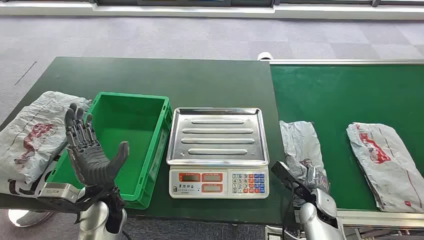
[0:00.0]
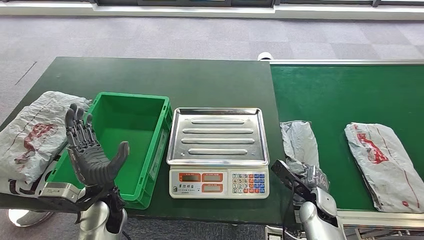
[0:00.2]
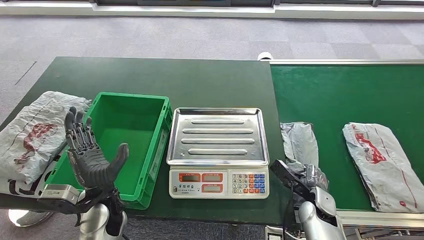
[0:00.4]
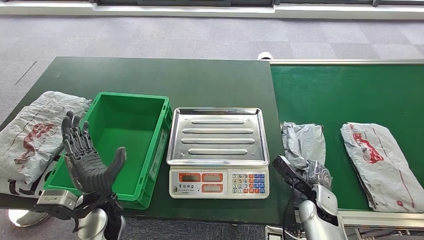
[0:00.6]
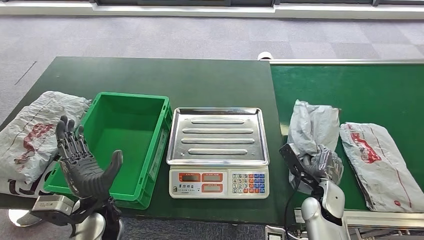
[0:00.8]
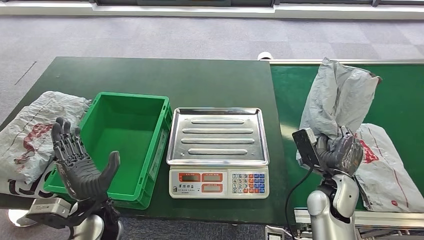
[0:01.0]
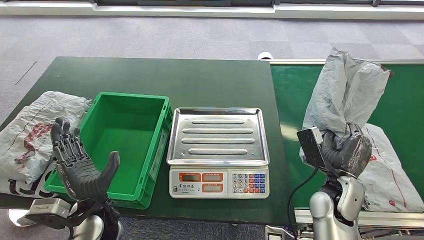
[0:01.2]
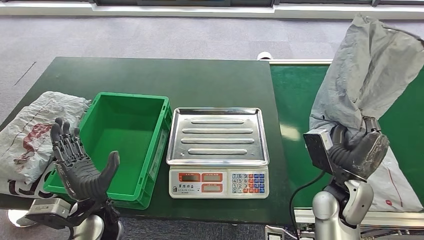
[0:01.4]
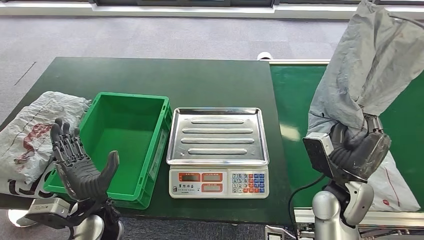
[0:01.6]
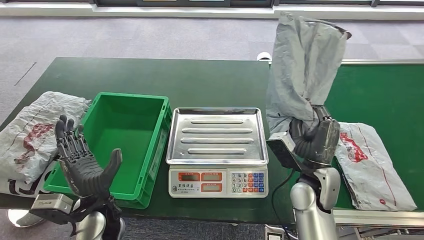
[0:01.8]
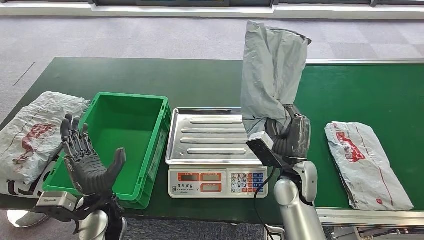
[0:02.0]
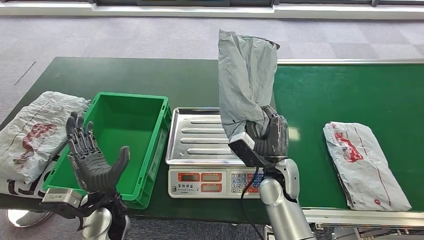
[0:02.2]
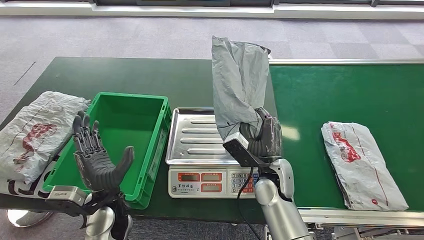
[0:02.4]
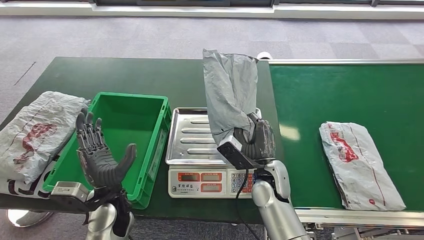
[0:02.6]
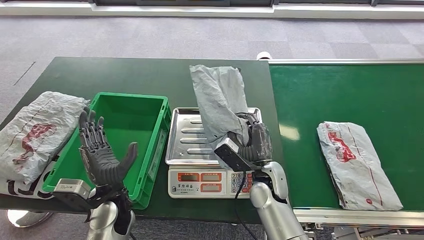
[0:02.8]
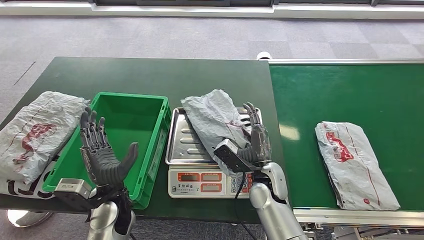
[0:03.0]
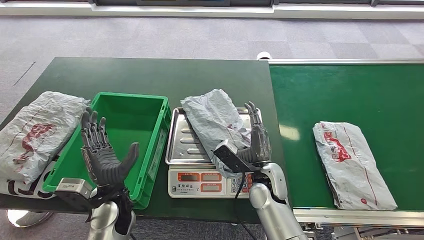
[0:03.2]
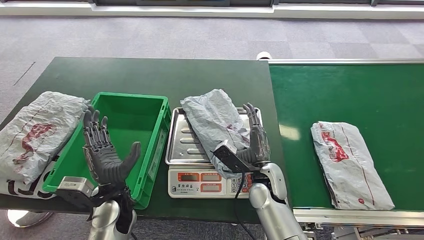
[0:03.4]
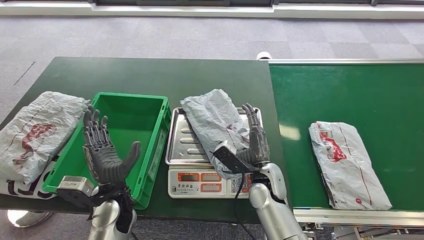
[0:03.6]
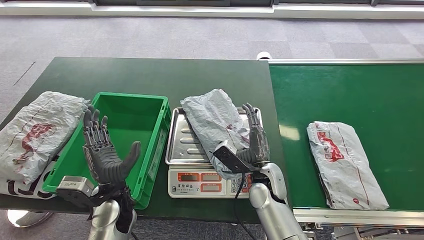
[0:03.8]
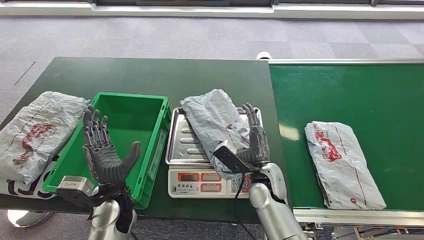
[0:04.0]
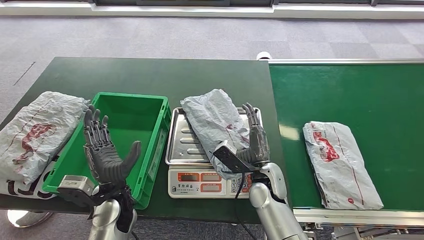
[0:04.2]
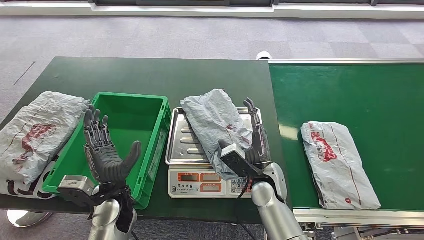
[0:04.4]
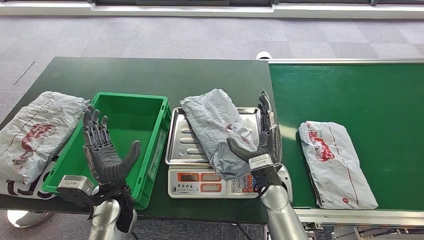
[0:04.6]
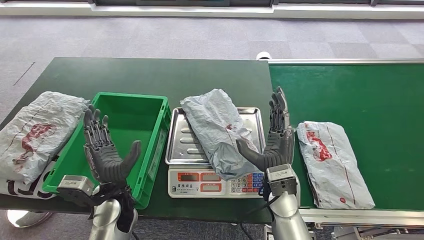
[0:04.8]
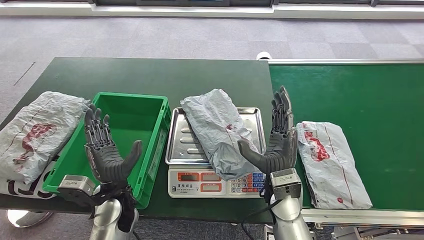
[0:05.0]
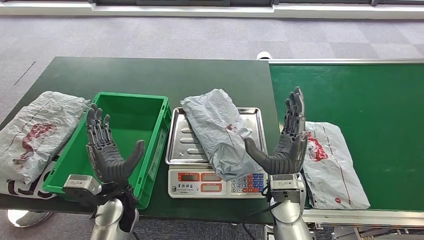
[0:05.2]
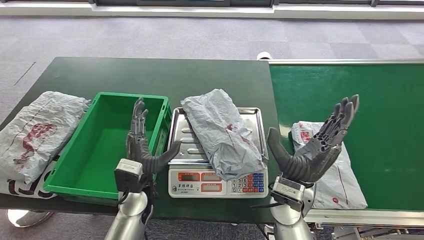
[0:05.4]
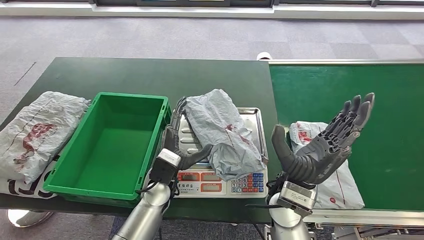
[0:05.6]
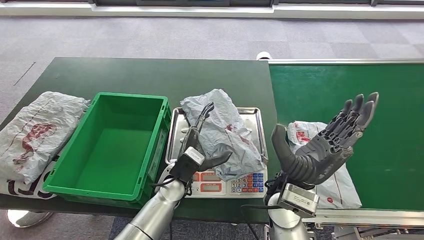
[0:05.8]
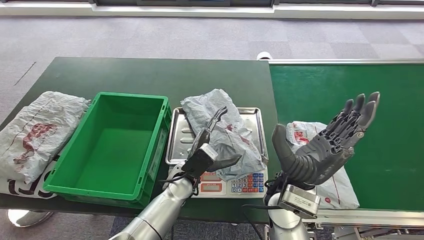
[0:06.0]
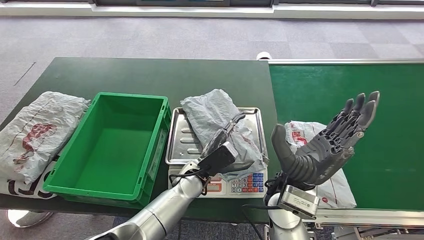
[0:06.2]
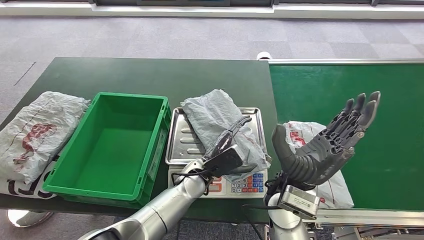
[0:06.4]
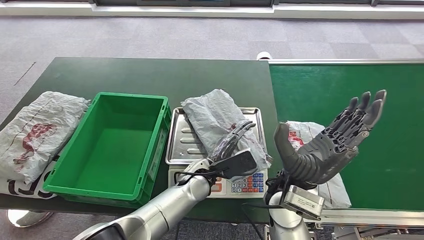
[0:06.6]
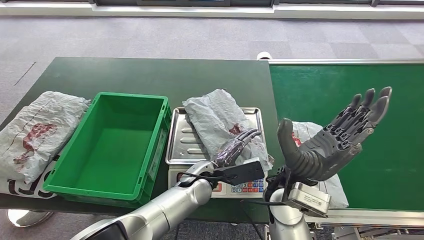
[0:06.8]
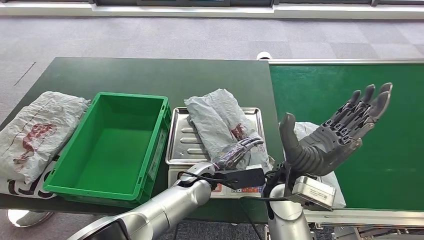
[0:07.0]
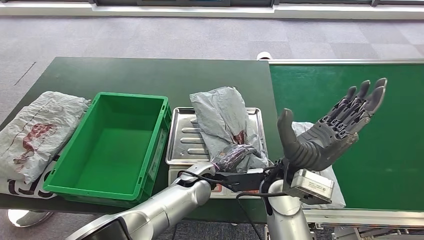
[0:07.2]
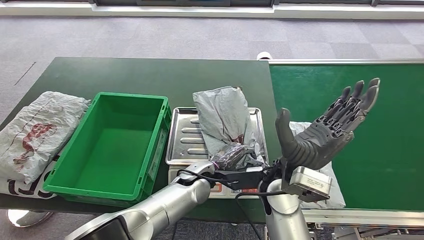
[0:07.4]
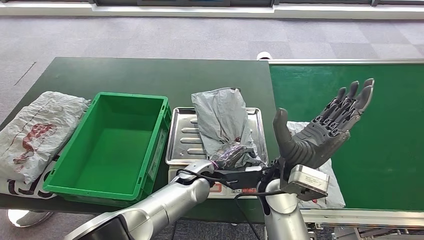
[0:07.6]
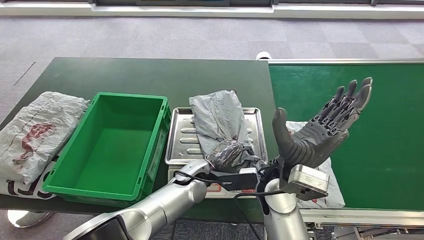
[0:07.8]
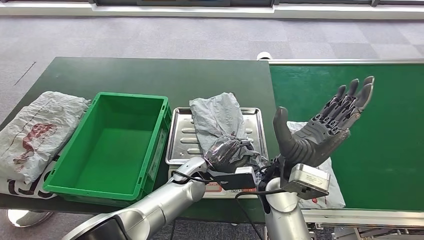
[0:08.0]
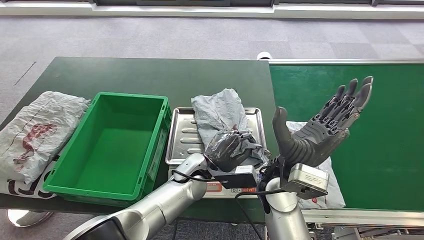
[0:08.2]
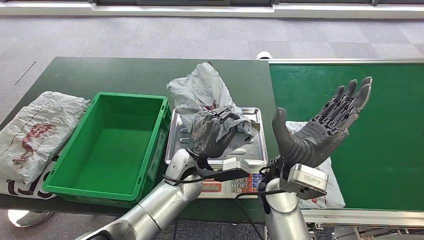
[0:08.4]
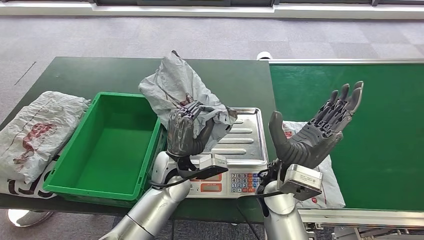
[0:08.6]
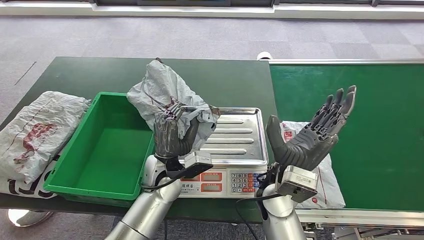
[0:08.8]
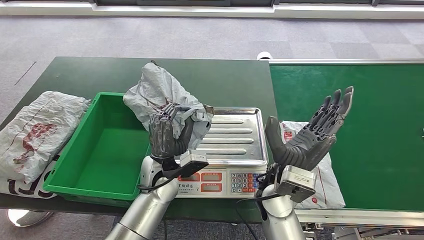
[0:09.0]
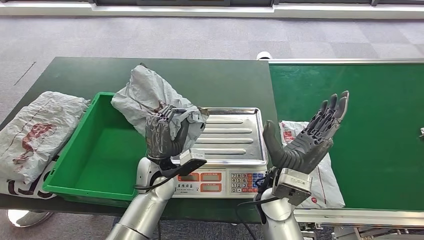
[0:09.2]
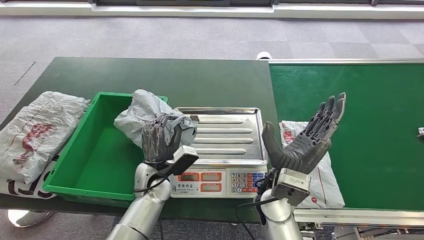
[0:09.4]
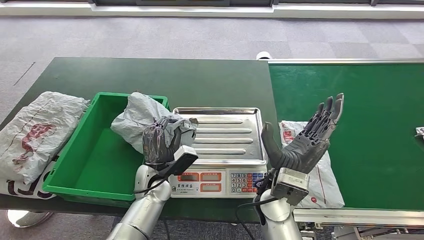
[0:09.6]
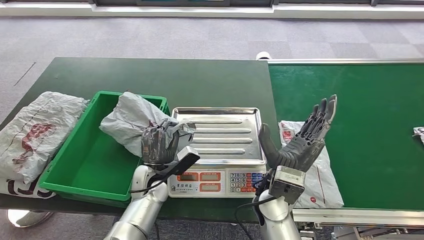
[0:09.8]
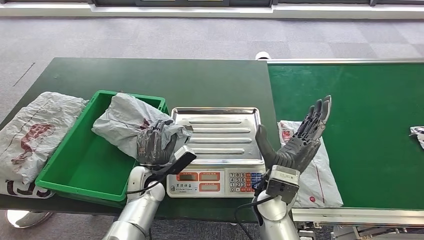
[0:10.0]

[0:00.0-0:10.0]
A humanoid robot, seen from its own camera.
Step, 0:00.0 to 0:01.4: Take the parcel off the conveyor belt.
Step, 0:01.6 to 0:05.0: Place the parcel onto the inbound machine.
Step, 0:05.4 to 0:09.0: Pick up the parcel from the inbound machine.
0:02.8 to 0:04.2: The two hands keep their place.
0:04.2 to 0:05.8: The right hand travels upward by about 10 cm, while the left hand is displaced to the right and forward by approximately 15 cm.
0:05.8 to 0:07.2: The left hand goes approximately 5 cm to the right.
0:07.2 to 0:08.6: The left hand shifts approximately 10 cm to the left and upward.

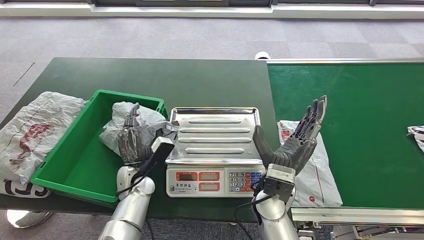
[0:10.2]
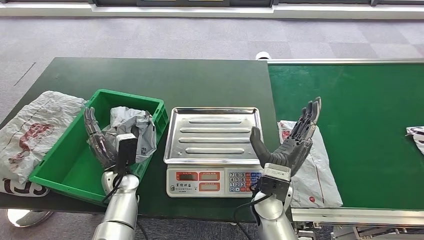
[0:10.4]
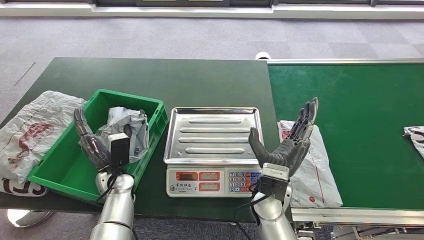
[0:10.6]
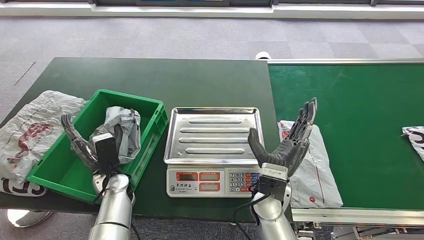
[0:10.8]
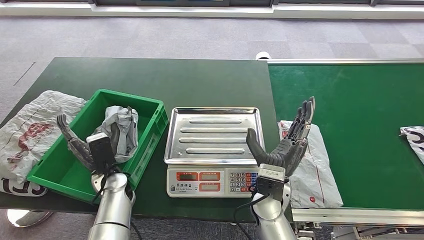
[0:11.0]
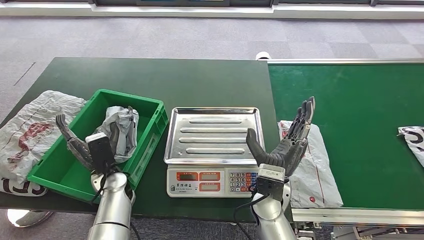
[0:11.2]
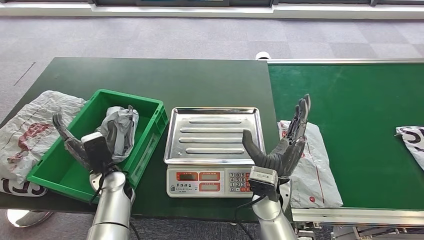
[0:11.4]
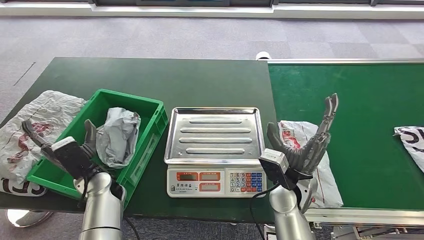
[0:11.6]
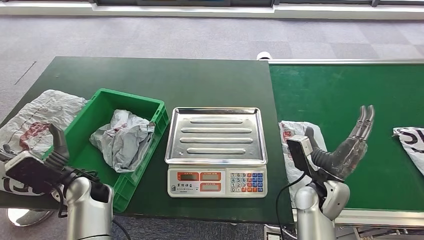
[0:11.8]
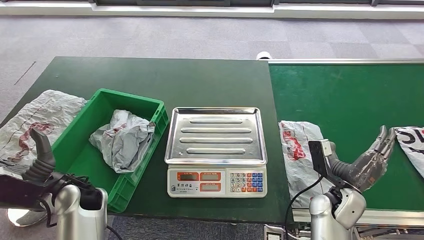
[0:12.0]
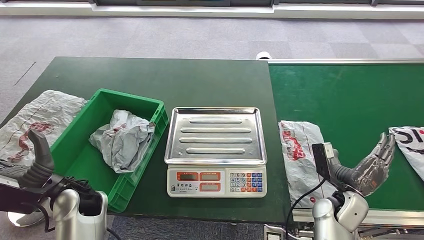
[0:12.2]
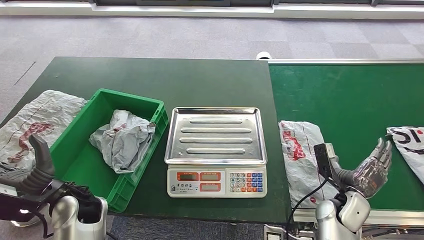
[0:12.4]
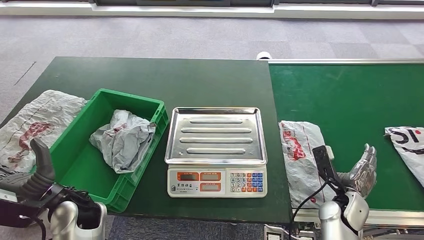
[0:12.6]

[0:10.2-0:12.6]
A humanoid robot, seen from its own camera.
Step, 0:10.2 to 0:12.6: Put the parcel inside the courier box.
0:10.2 to 0:11.4: The left hand shifts by approximately 5 cm.

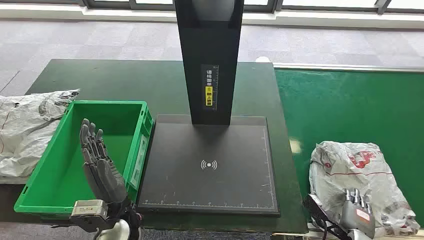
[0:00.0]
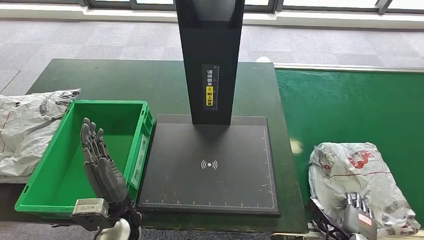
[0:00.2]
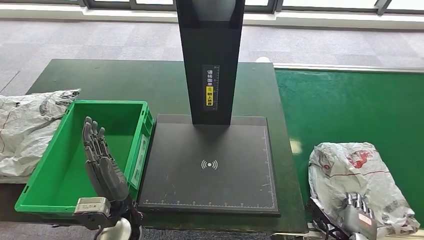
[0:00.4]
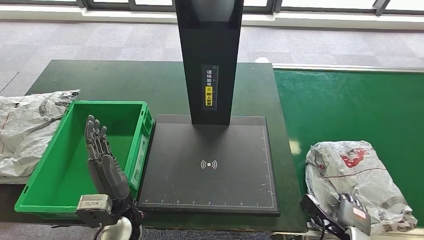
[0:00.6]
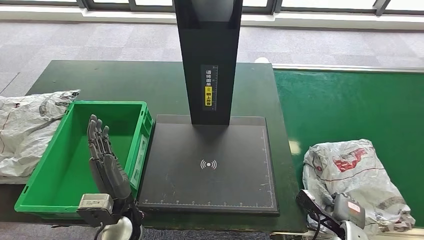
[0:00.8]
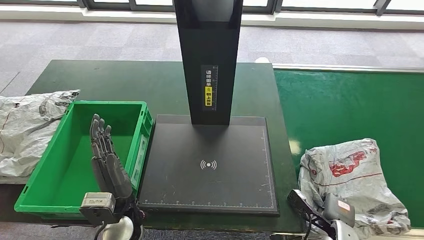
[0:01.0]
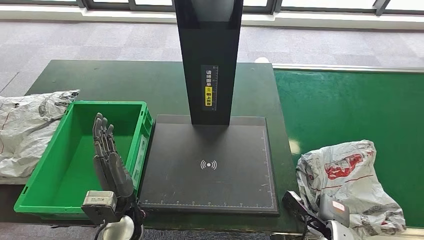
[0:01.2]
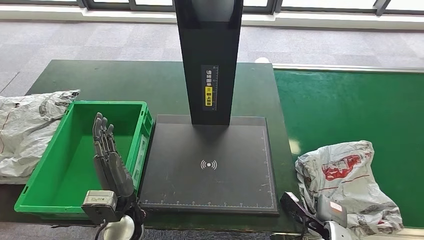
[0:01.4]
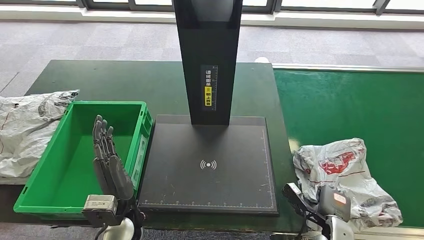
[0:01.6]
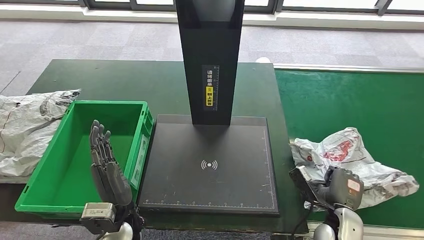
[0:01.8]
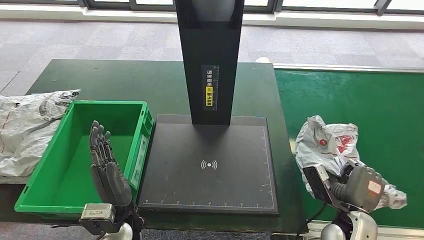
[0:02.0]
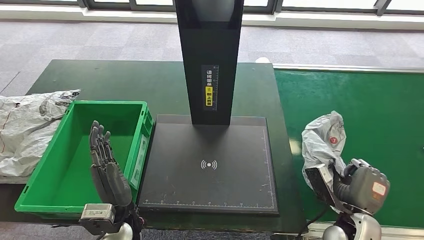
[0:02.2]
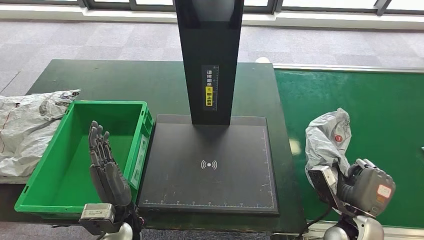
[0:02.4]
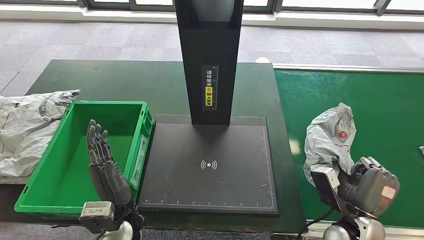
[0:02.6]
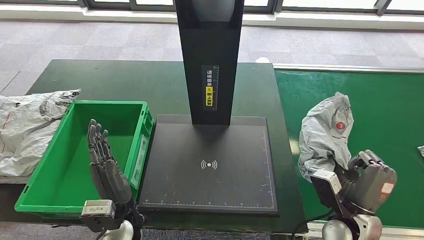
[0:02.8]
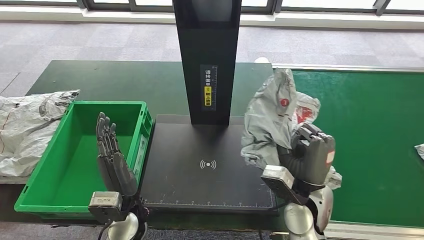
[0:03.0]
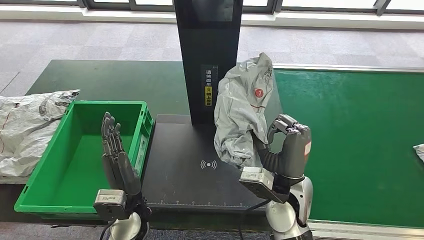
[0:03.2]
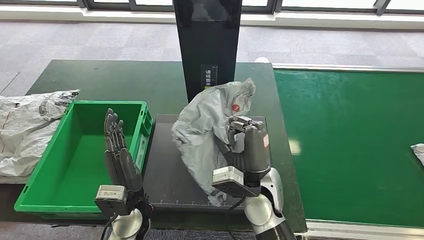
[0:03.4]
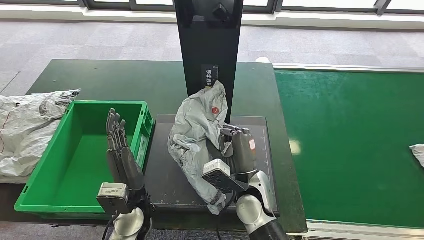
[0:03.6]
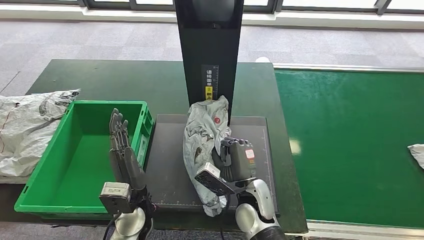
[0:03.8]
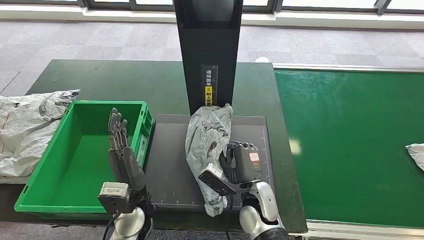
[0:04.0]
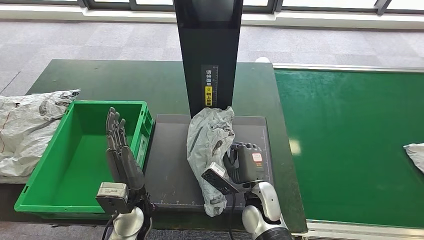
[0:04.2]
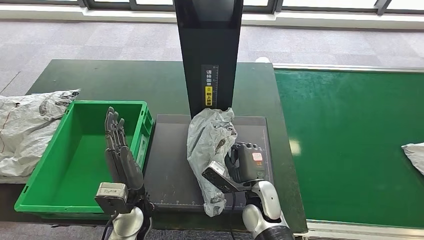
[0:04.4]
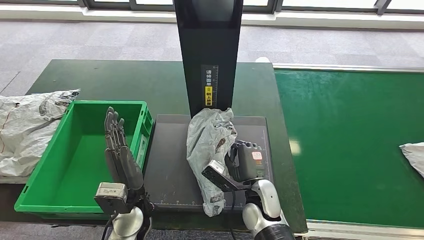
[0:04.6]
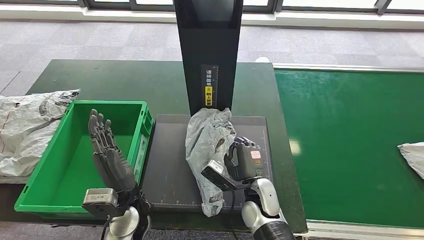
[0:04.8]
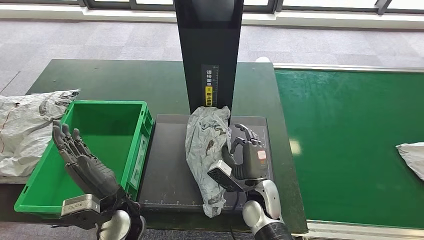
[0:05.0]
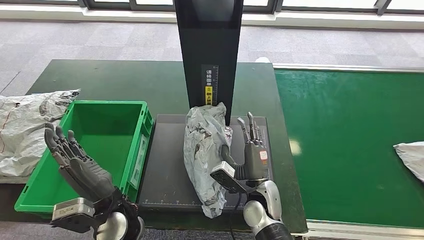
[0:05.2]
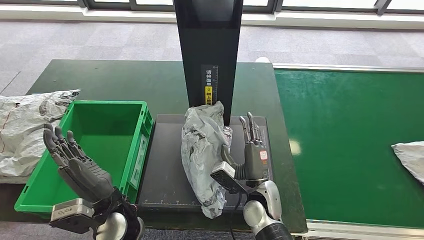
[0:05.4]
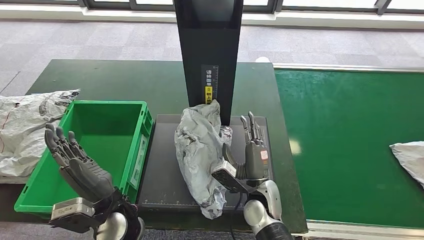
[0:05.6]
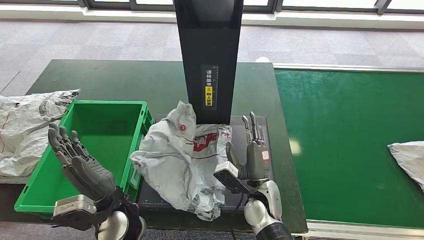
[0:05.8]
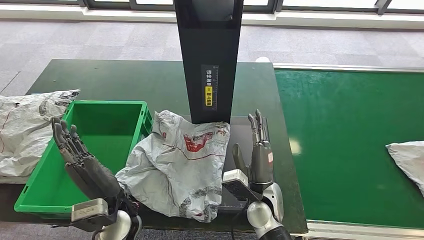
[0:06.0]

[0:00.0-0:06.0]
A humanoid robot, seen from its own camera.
Step, 0:00.0 to 0:02.0: Take the parcel off the conveyor belt.
Step, 0:02.2 to 0:05.4: Place the parcel onto the inbound machine.
0:01.6 to 0:03.0: The right hand goes about 20 cm upward, to the left and forward.
